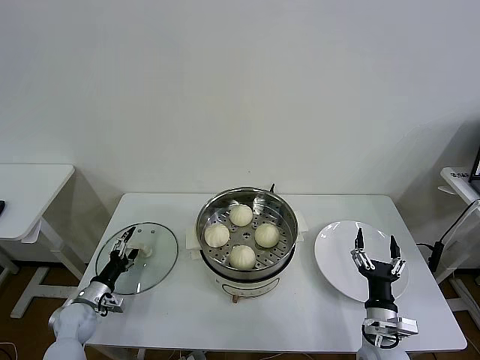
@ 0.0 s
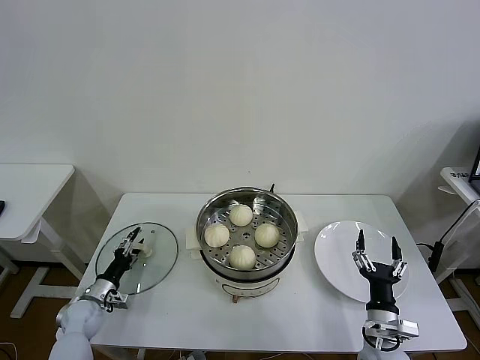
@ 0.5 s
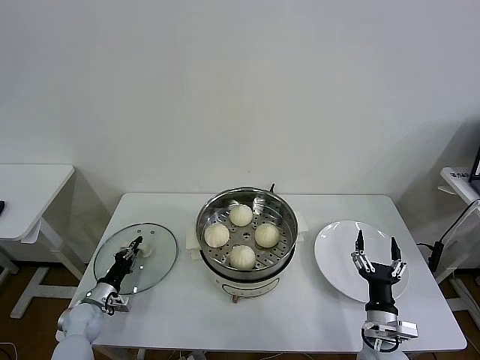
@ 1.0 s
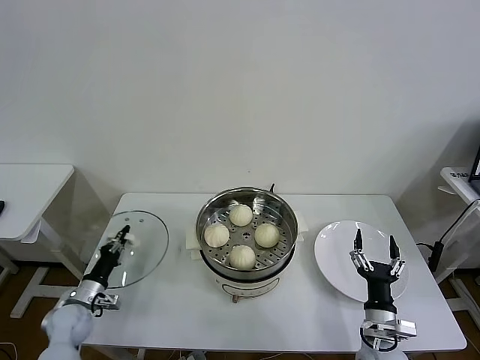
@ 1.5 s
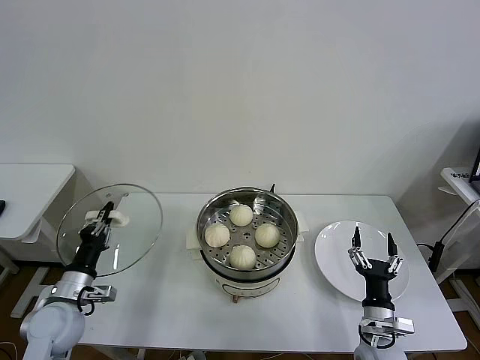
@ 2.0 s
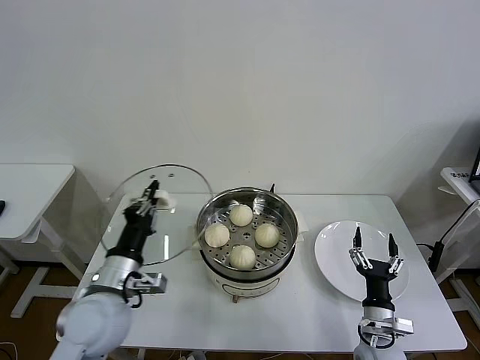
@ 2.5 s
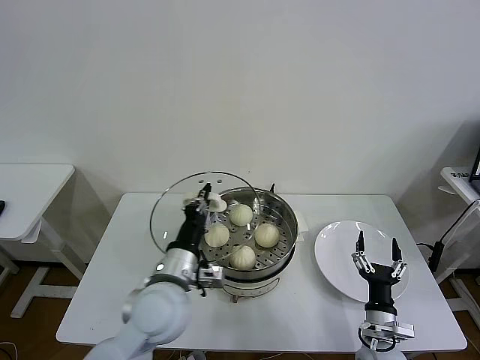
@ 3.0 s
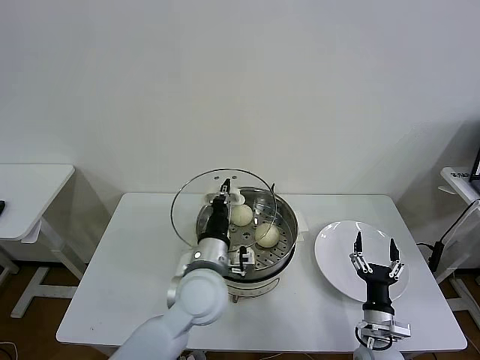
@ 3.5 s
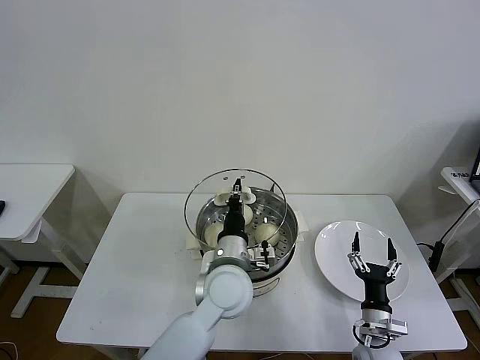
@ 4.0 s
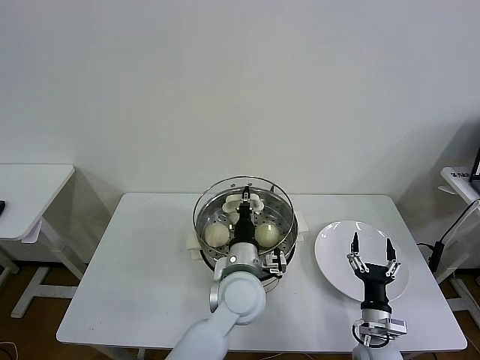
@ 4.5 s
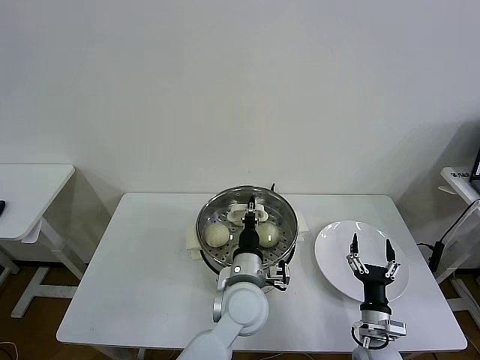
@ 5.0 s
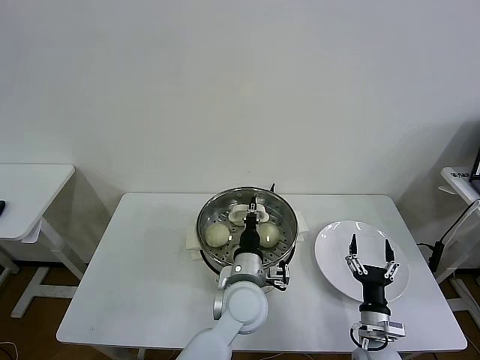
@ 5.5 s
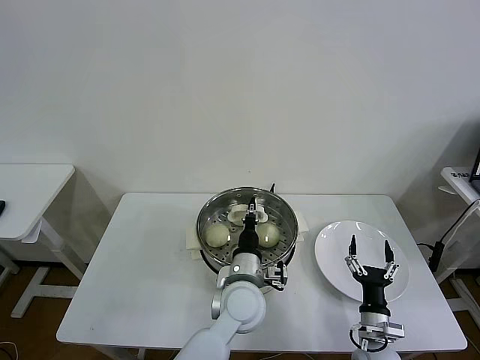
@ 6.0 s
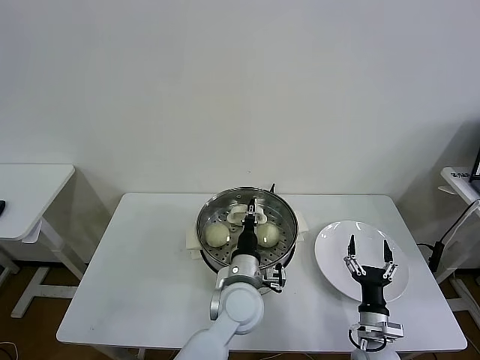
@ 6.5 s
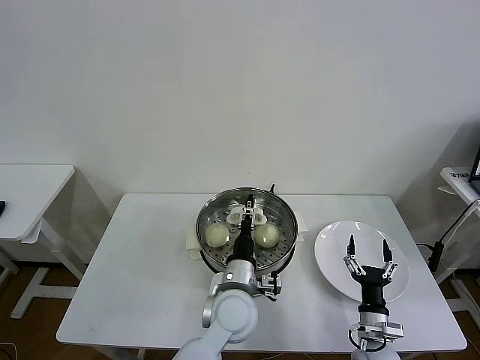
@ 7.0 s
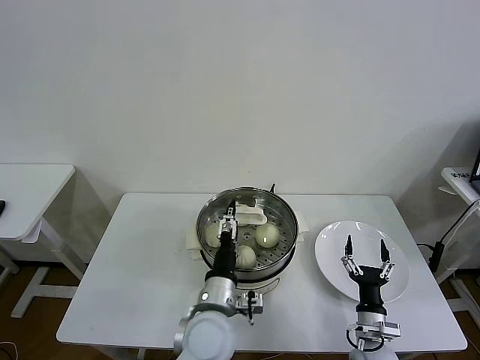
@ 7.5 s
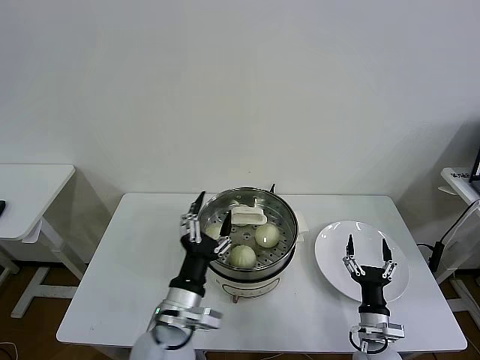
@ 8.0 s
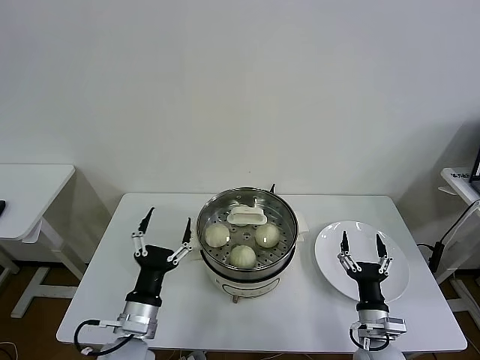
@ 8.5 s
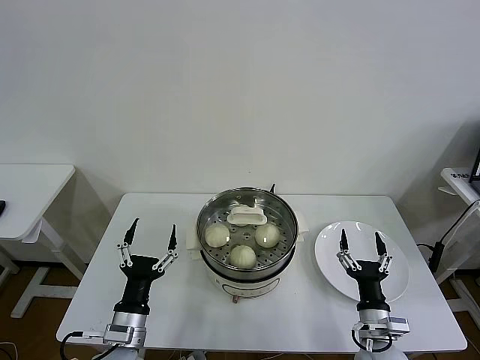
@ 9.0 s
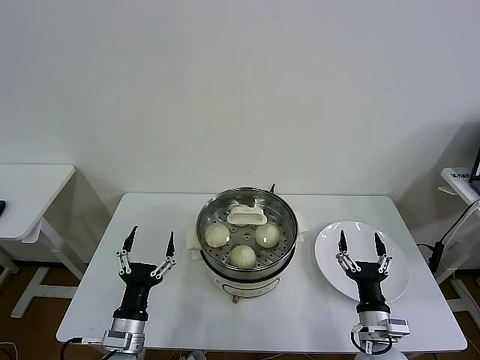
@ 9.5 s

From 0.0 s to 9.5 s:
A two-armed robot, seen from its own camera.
Task of the whole recording: take steamed baozi put them in steamer then cover it.
Step, from 1.5 s to 7.0 s: Place the pot lid on the steamer with left gripper.
From 0.0 s to 2.0 s: The left gripper shifts some 10 cm upward, and closes its fingers.
From 2.0 s to 4.0 s: The left gripper shifts approximately 35 cm to the right.
From 4.0 s to 5.5 s: The left gripper shifts by approximately 5 cm.
From 5.5 s to 7.5 s: The left gripper travels to the left by approximately 5 cm, and opens.
From 7.5 s to 9.5 s: The right gripper heads upward, covering roughly 5 cm. Meanwhile the left gripper moves to the left, some 20 cm.

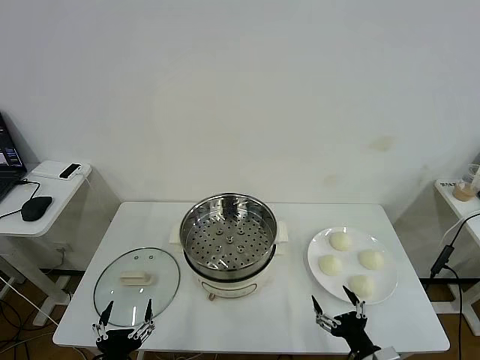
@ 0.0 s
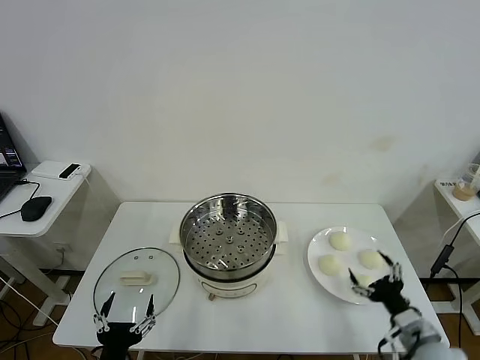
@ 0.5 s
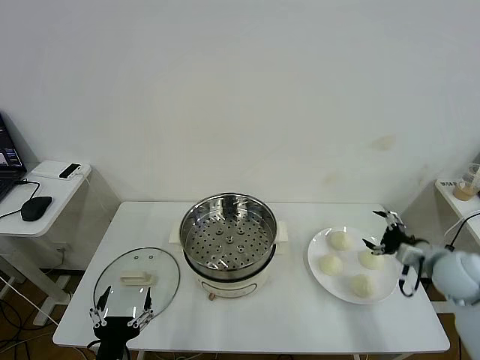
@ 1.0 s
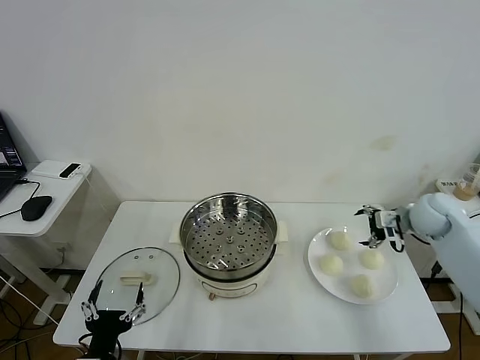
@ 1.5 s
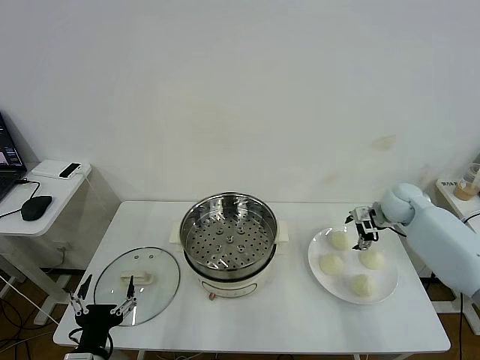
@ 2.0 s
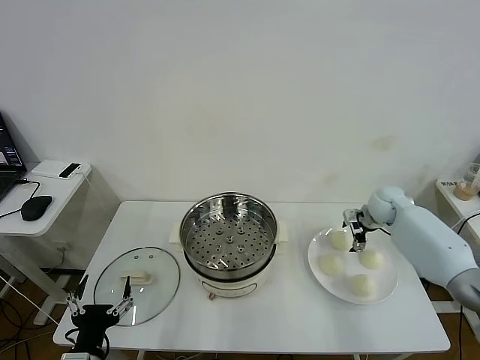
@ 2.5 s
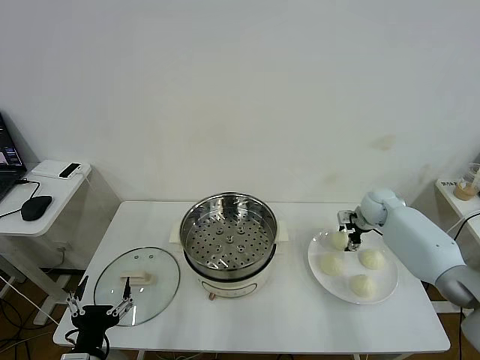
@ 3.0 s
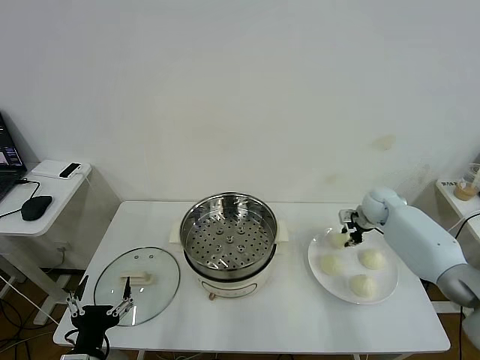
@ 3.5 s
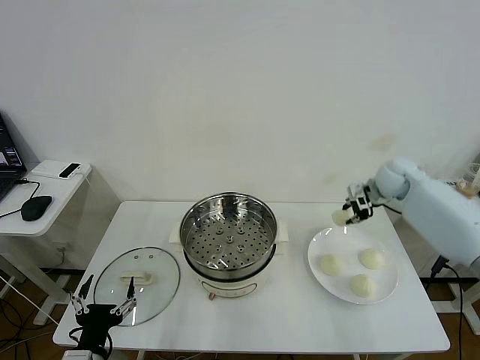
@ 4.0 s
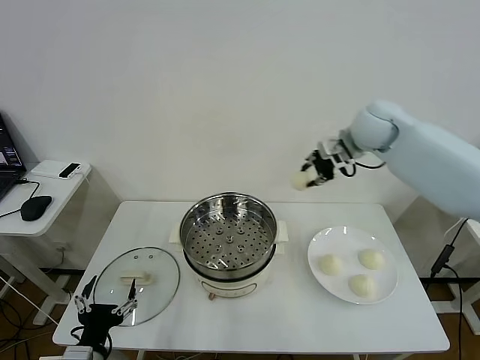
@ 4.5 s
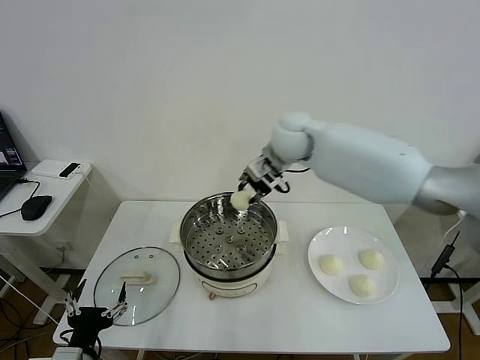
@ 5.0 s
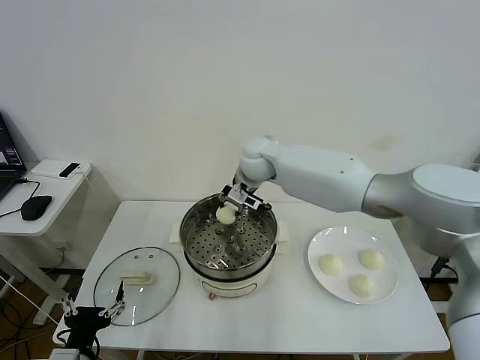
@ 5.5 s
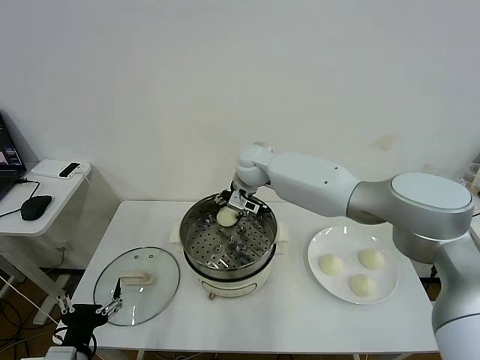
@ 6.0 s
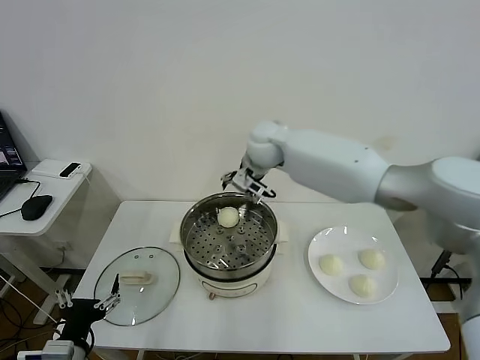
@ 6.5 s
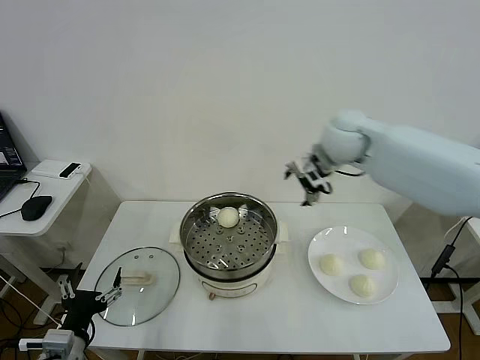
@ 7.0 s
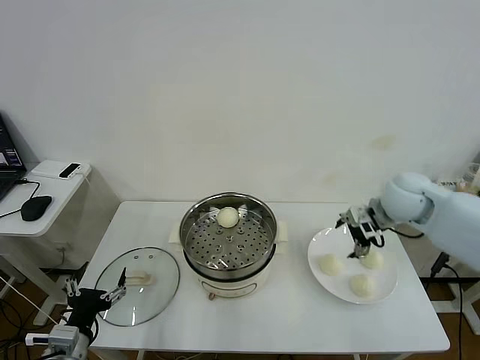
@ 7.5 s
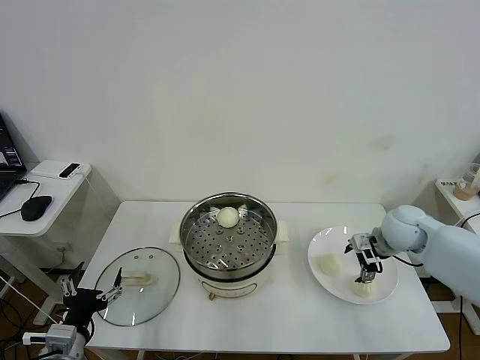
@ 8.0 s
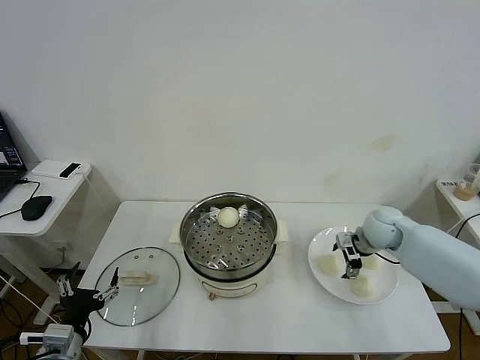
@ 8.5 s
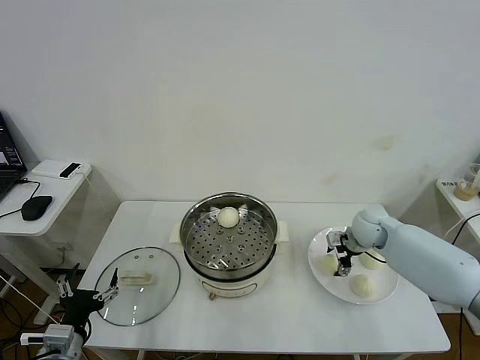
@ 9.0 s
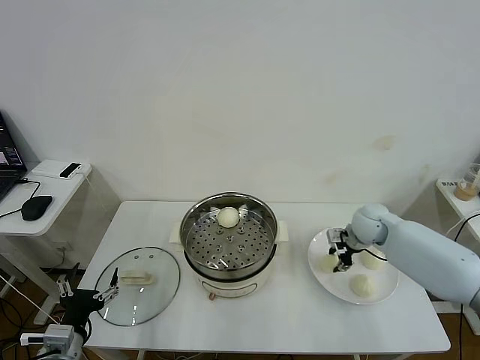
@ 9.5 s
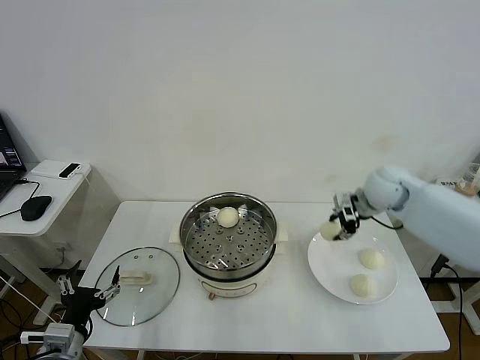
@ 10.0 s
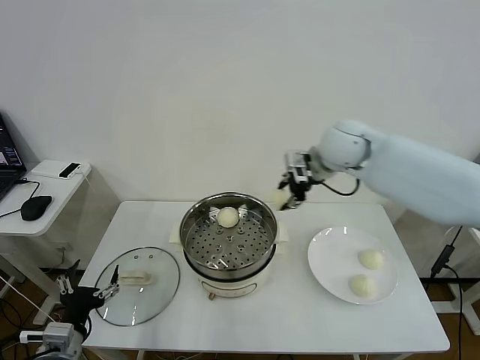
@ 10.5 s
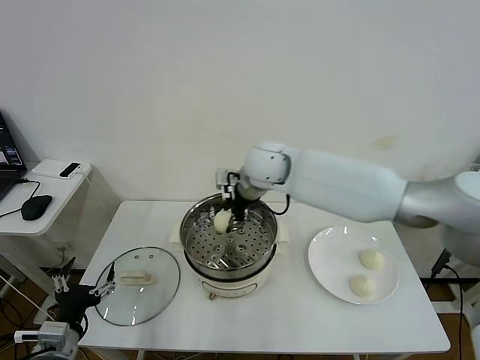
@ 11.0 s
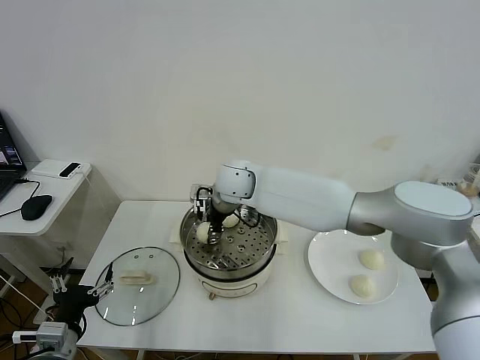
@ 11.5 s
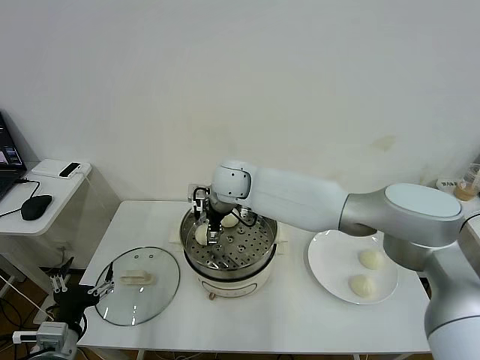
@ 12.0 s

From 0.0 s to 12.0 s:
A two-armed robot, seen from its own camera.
Task of the whole recording: take steamed baozi put them in steamer then cover it.
Step, from 0.0 s to 3.5 s: Grasp the baozi in the plate with right gripper.
Step, from 4.0 s to 6.0 s: Place the baozi on the steamer with right gripper.
Step, from 6.5 s to 9.0 s: Grasp the baozi in the plate with right gripper.
Step, from 9.5 s to 12.0 s: Place the baozi on the steamer with right gripper.
From 2.0 s to 4.0 s: The right gripper moves upward, about 10 cm, and closes up.
From 4.0 s to 6.0 s: The right gripper heads to the left, covering roughly 35 cm, and opens its fingers.
From 6.0 s to 8.0 s: The right gripper is displaced to the right by roughly 35 cm.
From 8.0 s to 10.0 s: The right gripper shifts some 15 cm upward, forward and to the left, and closes up.
From 10.0 s to 12.0 s: The right gripper heads to the left, covering roughly 30 cm, and opens up.

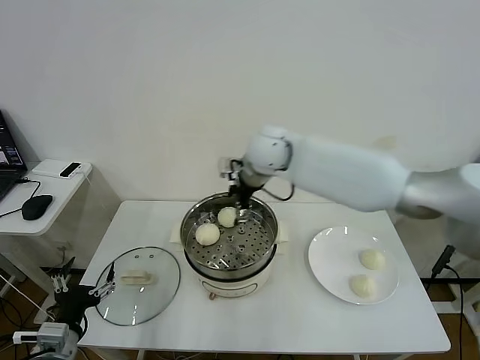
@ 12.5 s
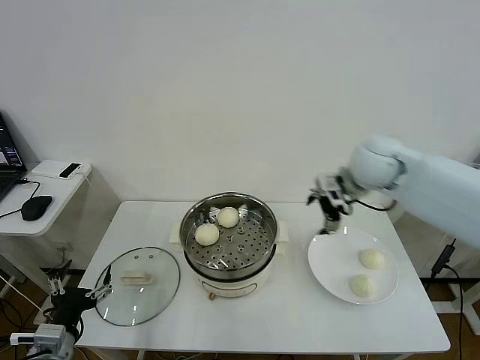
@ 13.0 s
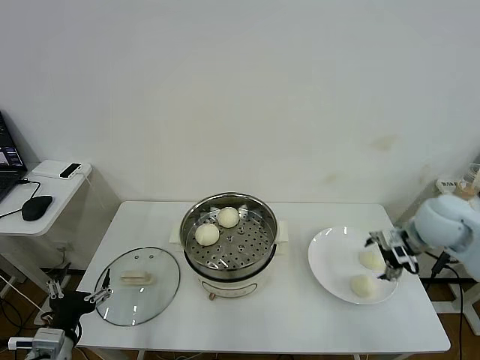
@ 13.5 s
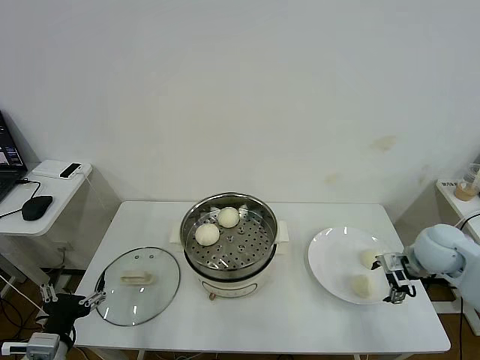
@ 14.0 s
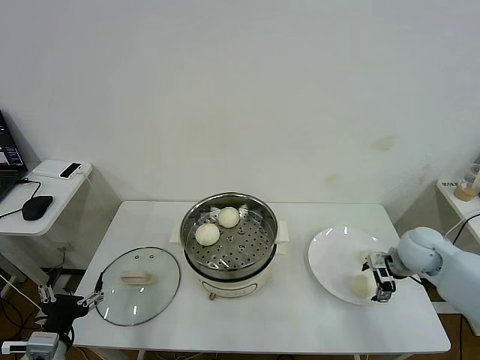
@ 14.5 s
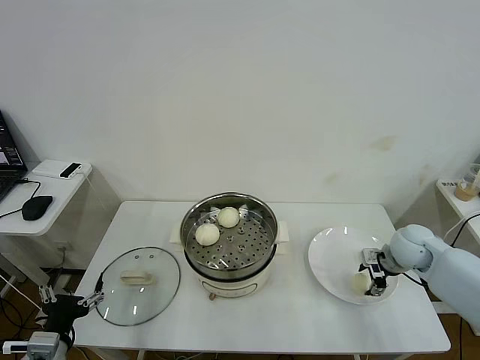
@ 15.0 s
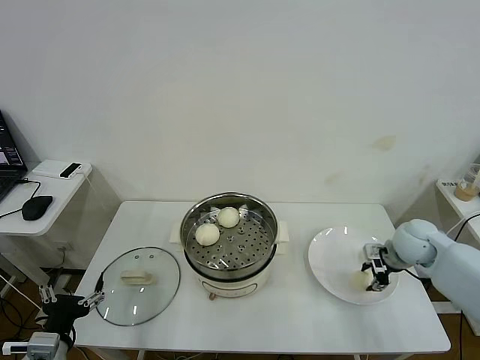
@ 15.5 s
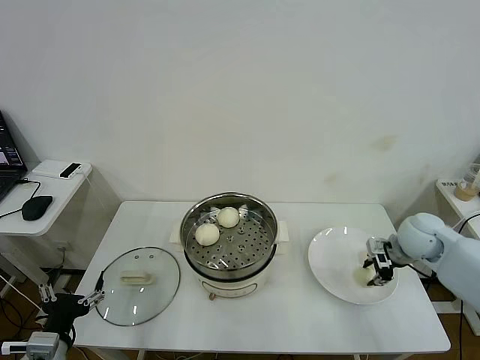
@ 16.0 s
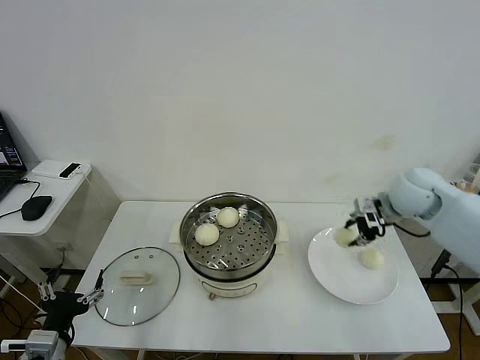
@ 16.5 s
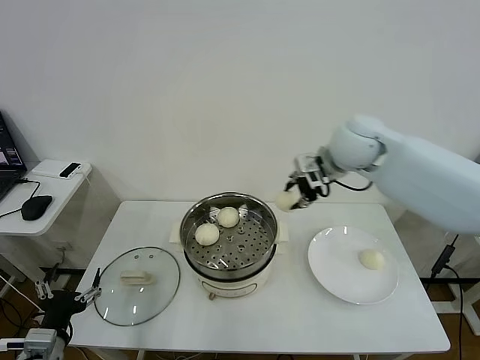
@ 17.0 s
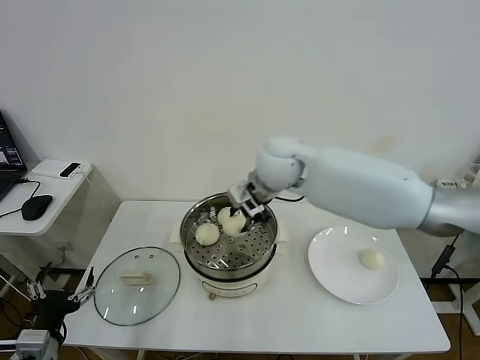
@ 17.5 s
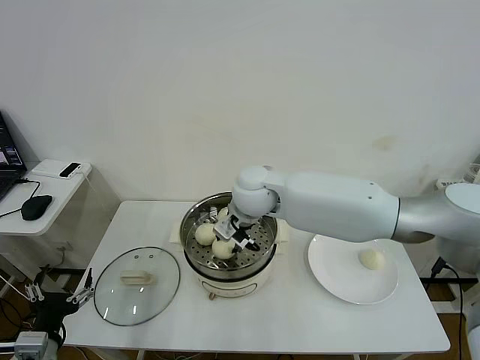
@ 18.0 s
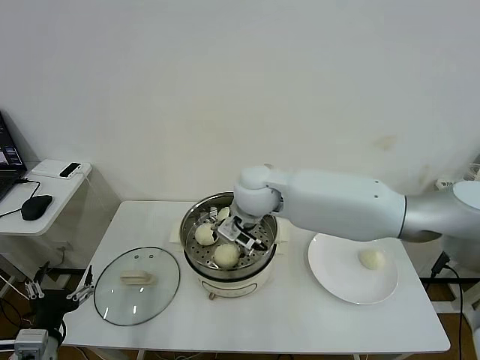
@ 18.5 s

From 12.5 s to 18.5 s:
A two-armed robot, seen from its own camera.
Task of the whole recording: take steamed baozi put them in steamer then cover it.
Step, from 12.5 s to 15.0 s: Grasp the baozi in the plate with right gripper.
Step, from 15.5 s to 18.5 s: Place the baozi on the steamer with right gripper.
From 12.5 s to 14.5 s: The right gripper shifts some 35 cm to the right and downward.
From 14.5 s to 16.5 s: The right gripper moves upward and to the left, some 15 cm, and closes.
From 16.5 s to 18.5 s: The right gripper goes roughly 30 cm to the left, and opens up.
